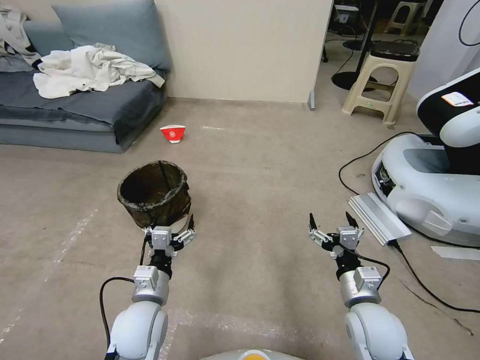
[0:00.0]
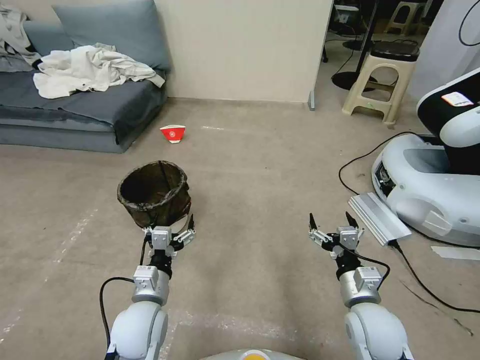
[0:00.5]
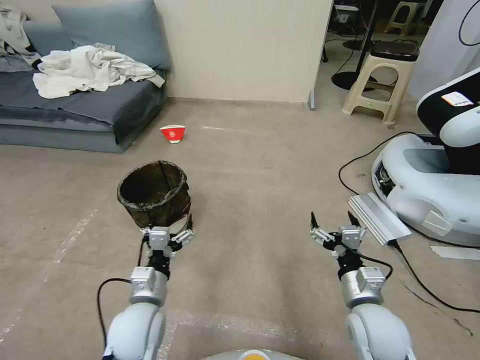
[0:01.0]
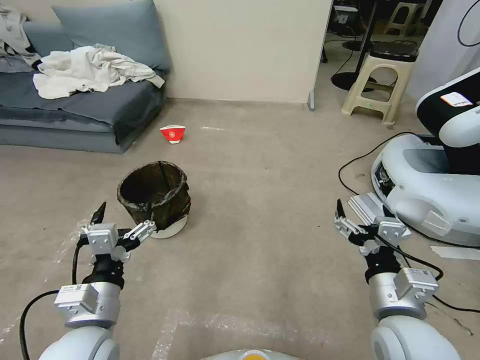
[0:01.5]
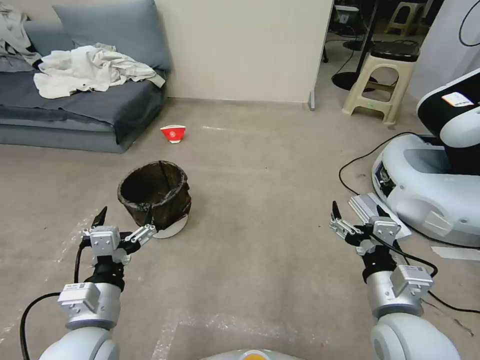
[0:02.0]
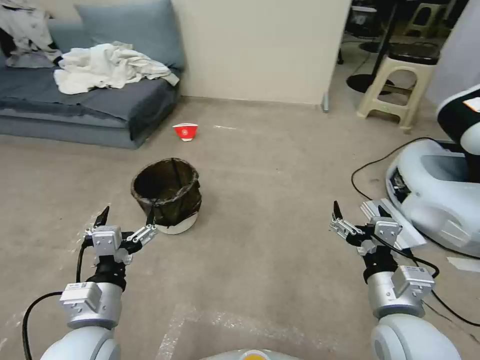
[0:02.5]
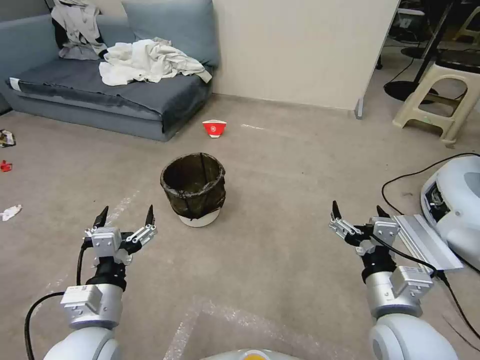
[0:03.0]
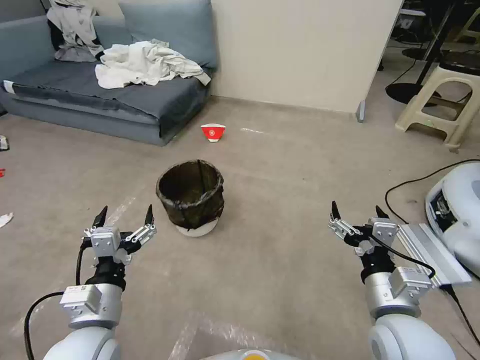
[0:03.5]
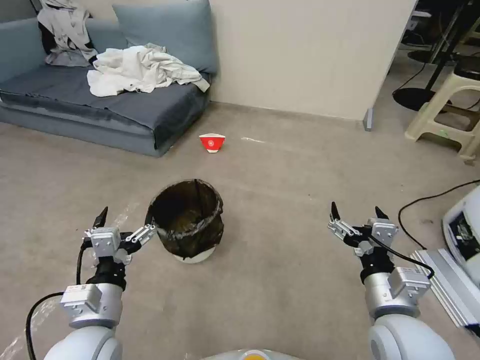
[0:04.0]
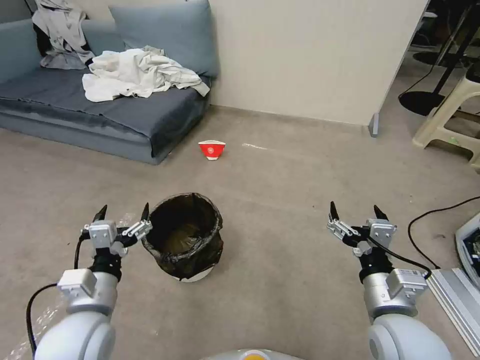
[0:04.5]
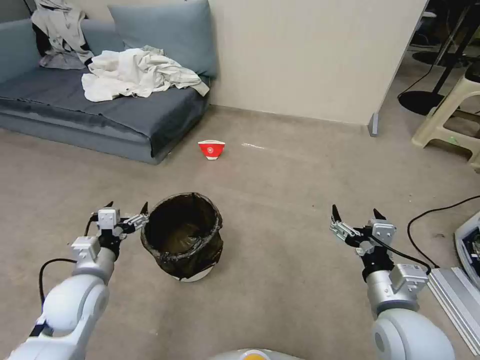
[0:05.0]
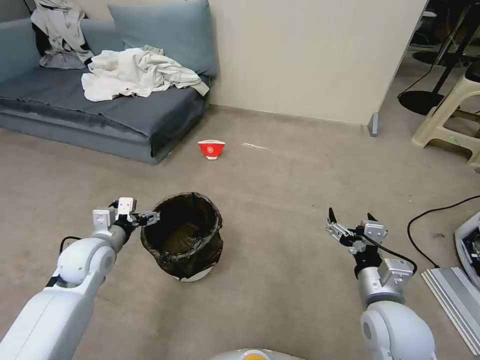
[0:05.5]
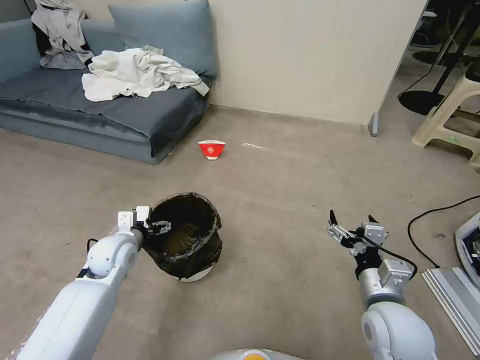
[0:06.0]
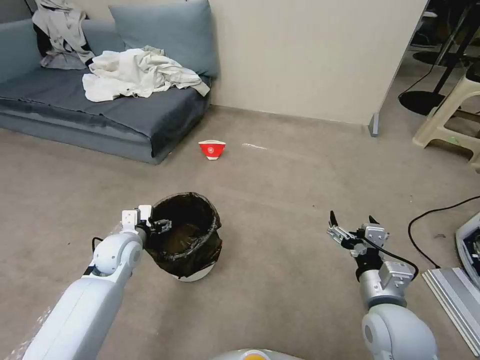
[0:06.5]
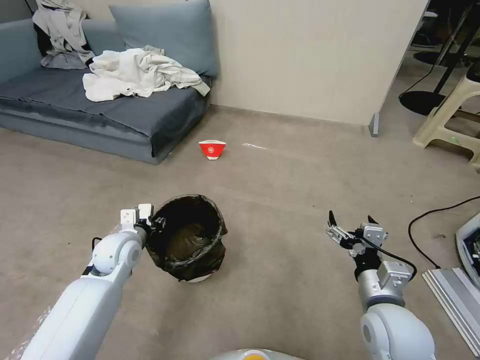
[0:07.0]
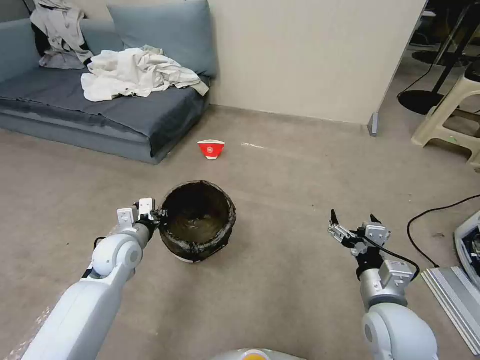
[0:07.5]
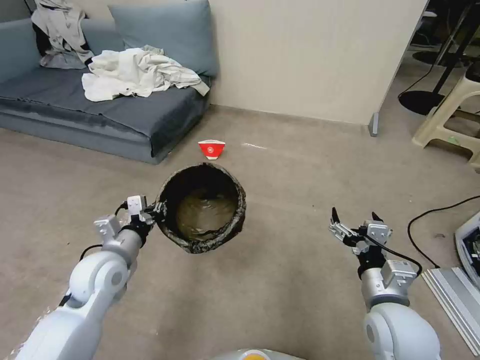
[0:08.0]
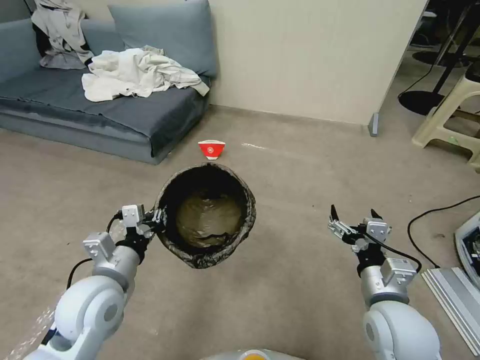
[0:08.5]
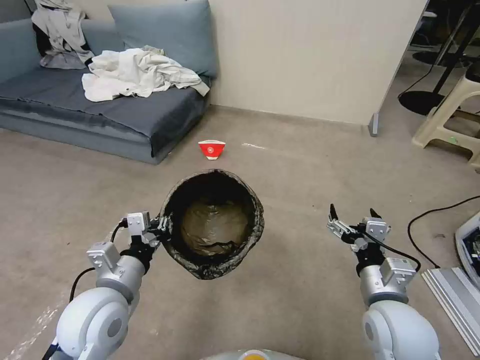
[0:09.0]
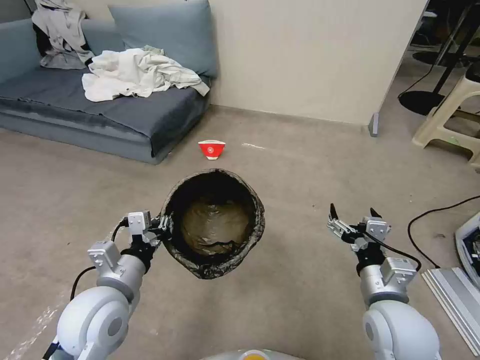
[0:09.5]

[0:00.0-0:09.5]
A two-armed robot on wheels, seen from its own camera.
Task of the whole recording: Pick up the trash can from the floor.
0:04.0 to 0:05.5: The right gripper shifts by roughly 5 cm. The left gripper is displaced forward and to the left by some 20 cm.
0:05.5 to 0:07.5: The left gripper ends up approximately 5 cm from where it was, and closes its fingers.
0:07.5 to 0:09.5: The left gripper goes about 15 cm backward and upward.

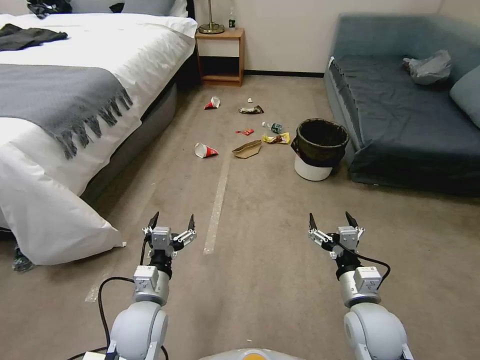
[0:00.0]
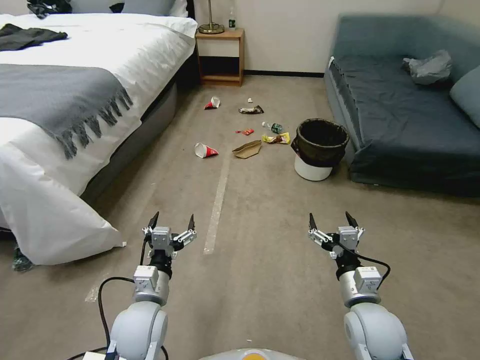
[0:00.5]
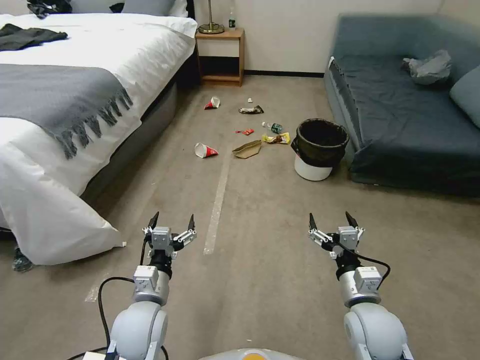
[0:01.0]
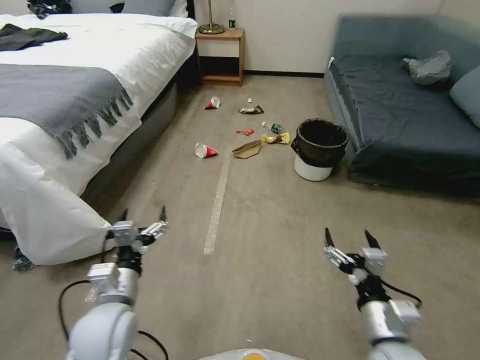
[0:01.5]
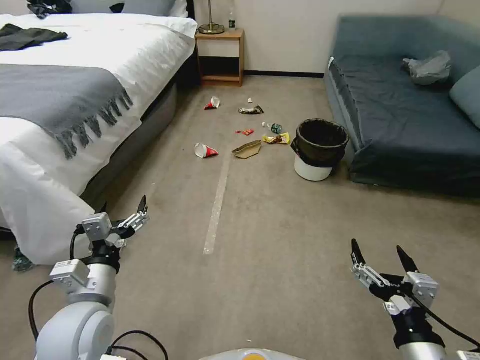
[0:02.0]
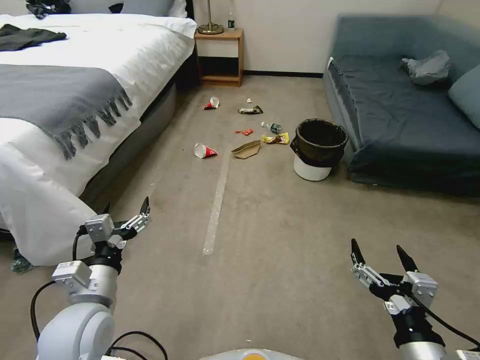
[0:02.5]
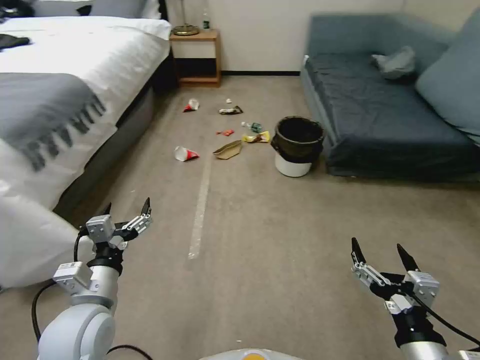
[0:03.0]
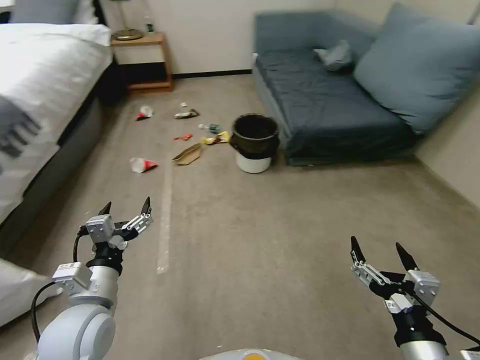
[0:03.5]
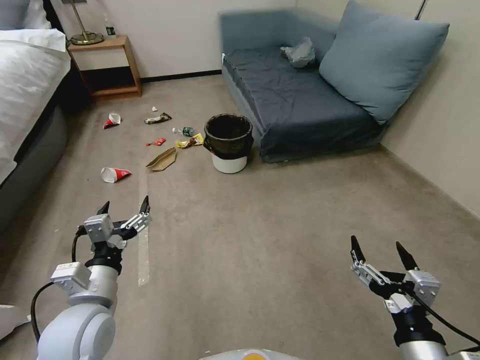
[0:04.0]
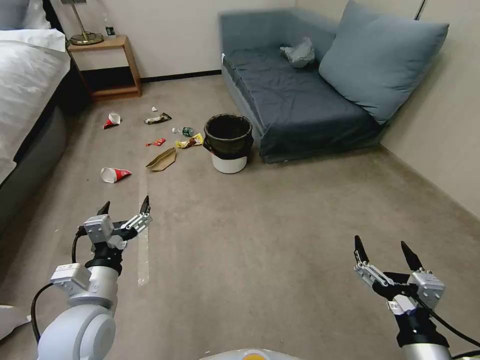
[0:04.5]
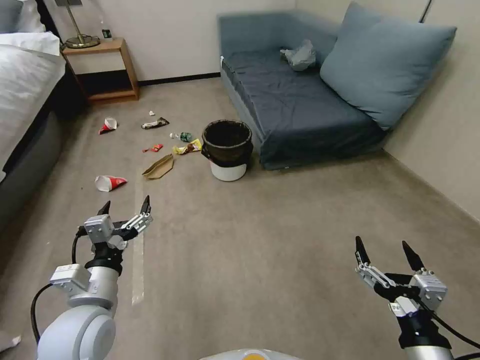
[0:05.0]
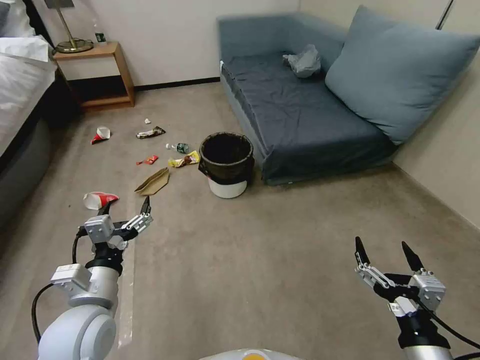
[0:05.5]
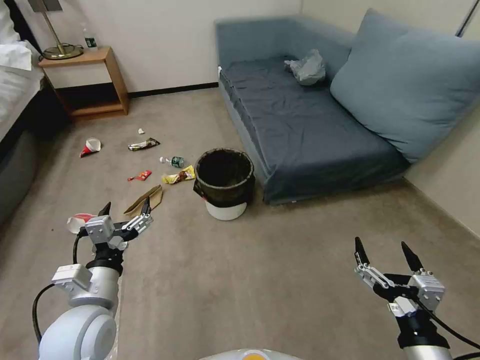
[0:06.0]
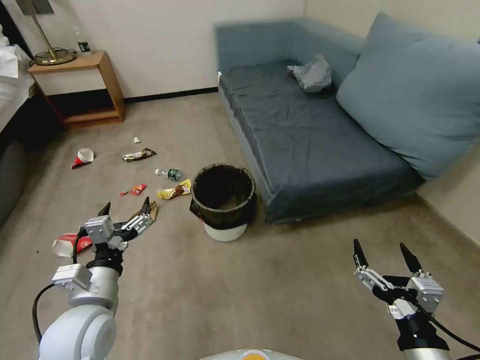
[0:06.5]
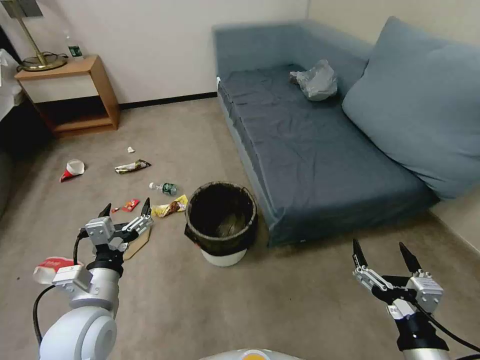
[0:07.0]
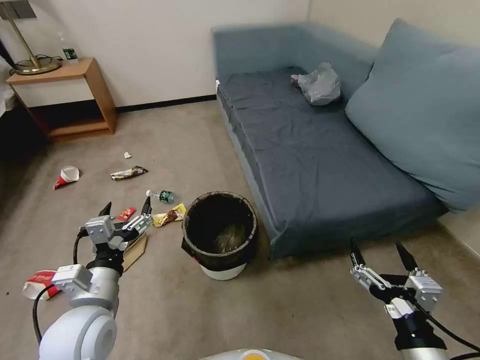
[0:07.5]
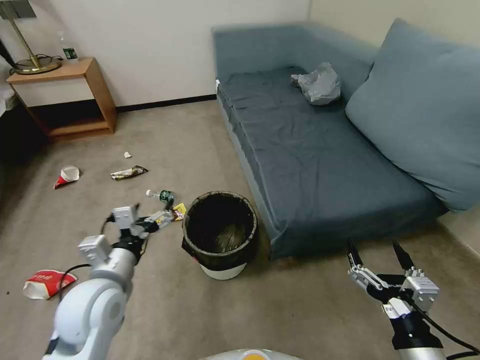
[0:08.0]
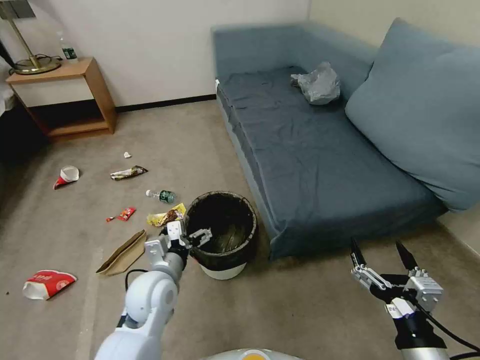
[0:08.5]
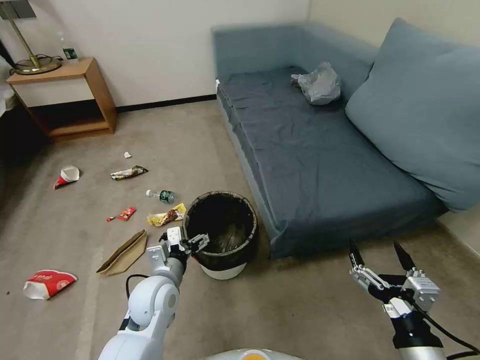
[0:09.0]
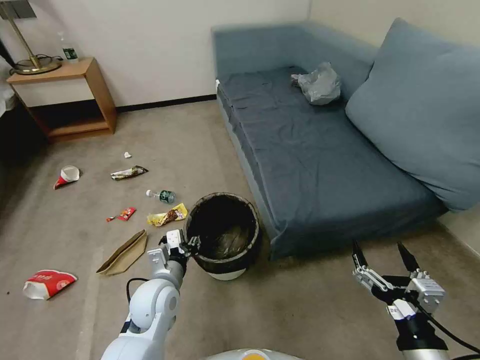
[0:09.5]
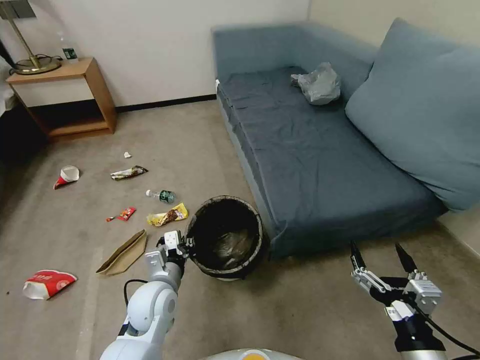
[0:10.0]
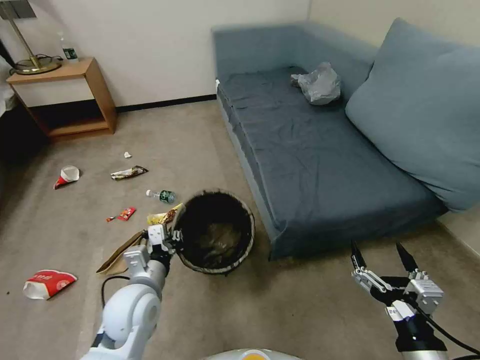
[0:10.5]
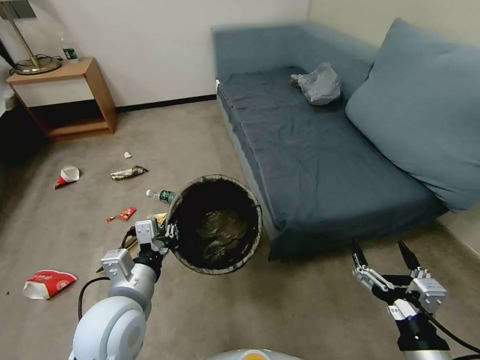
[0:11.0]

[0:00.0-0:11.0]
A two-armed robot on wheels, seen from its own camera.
Task of the whole recording: Pick up the trash can from the floor.
0:07.5 to 0:09.0: The left gripper shifts roughly 15 cm downward, forward and to the right.
0:09.0 to 0:11.0: The left gripper is displaced upward and backward by about 15 cm, and closes.

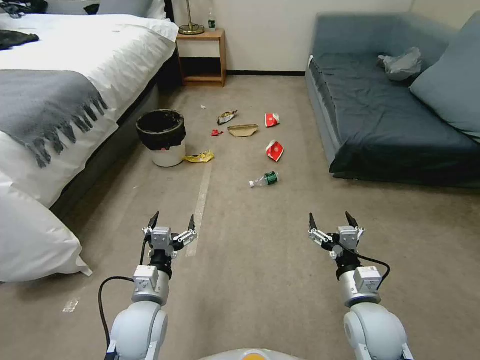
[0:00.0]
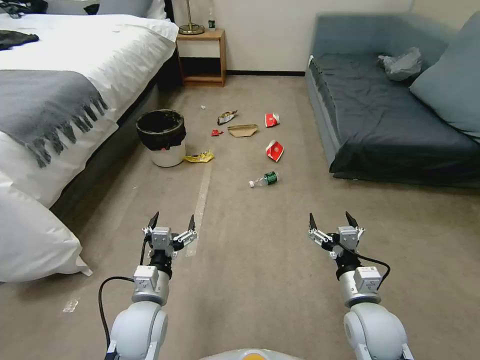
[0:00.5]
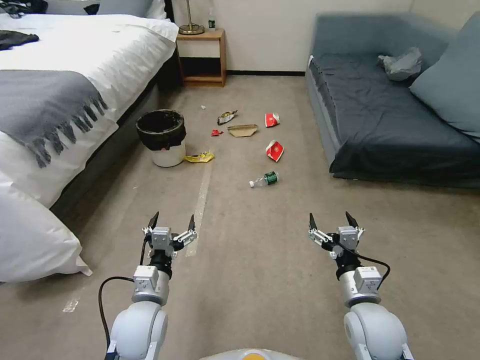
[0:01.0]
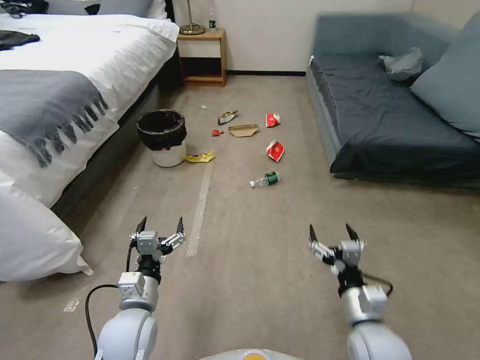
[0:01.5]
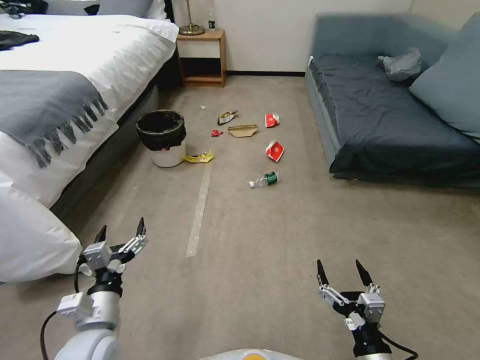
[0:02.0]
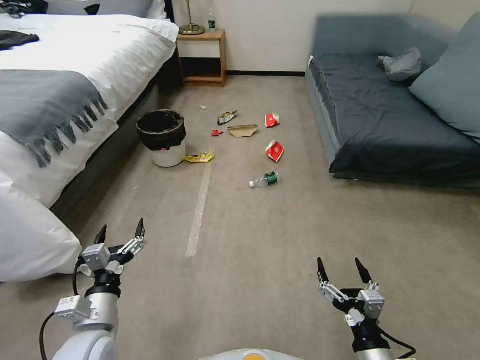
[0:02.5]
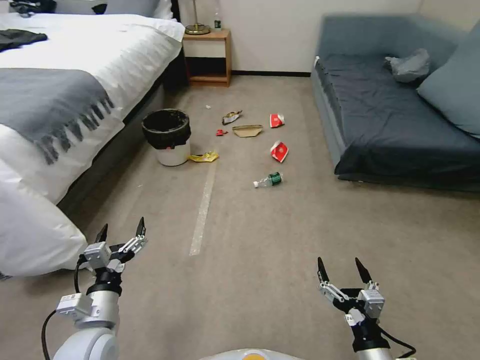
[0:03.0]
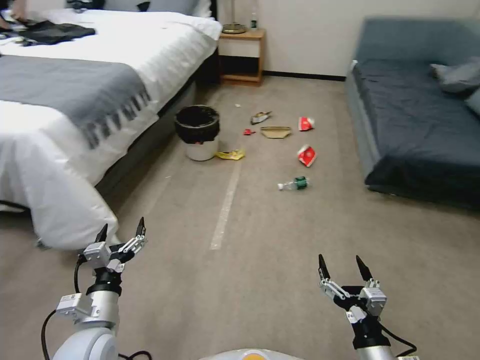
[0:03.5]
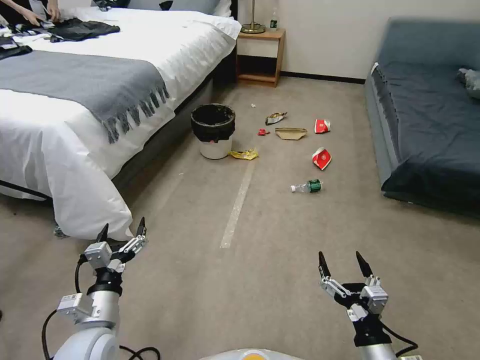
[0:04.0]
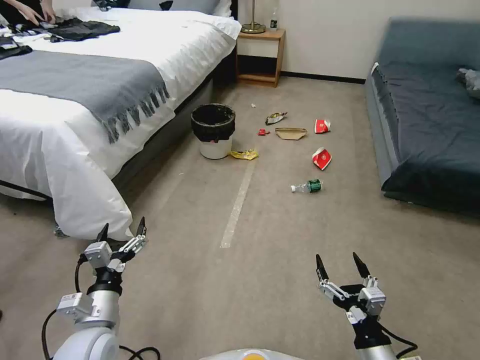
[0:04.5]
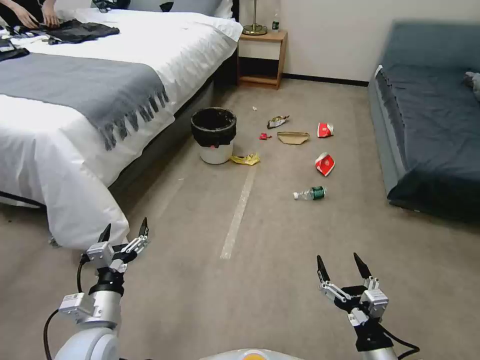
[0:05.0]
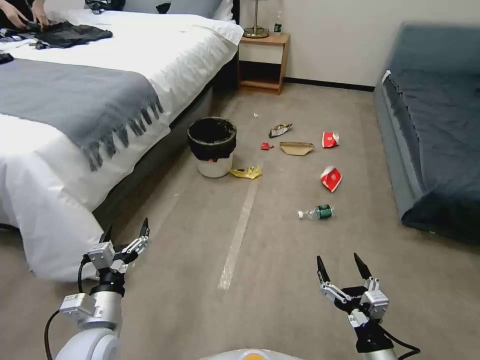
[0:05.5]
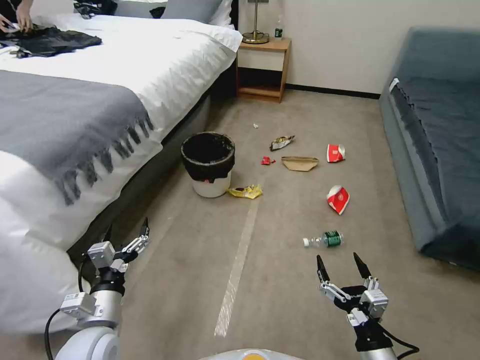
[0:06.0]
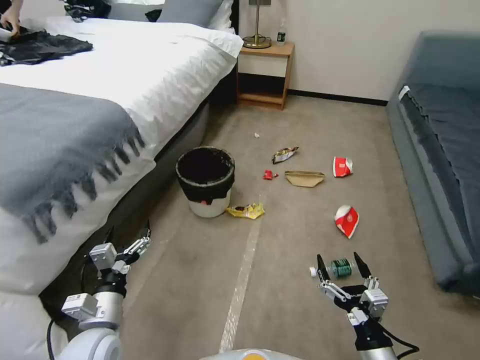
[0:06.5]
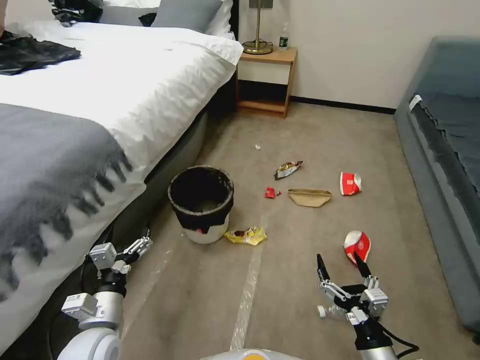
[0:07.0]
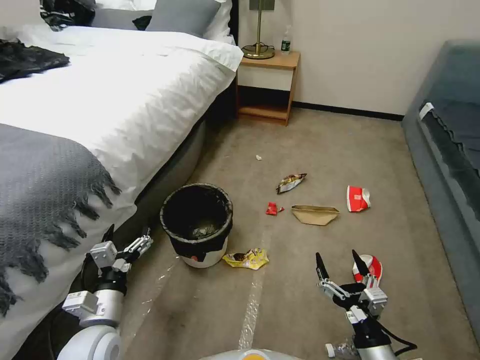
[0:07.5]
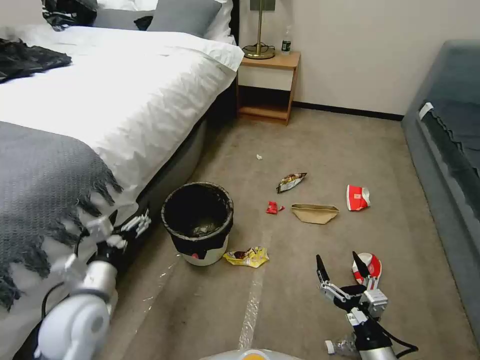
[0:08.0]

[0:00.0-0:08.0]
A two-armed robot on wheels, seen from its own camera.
Task of the whole recording: Pick up the trash can from the floor.
0:06.0 to 0:08.0: The left gripper moves upward, approximately 5 cm.
